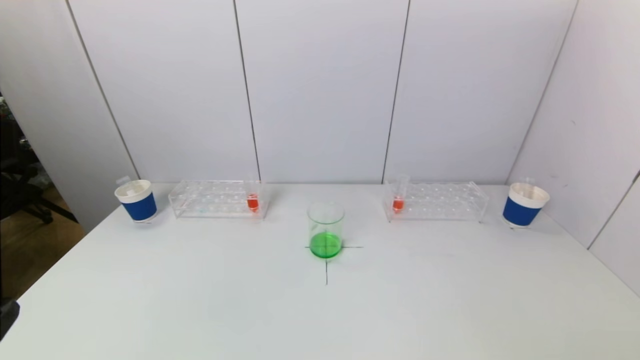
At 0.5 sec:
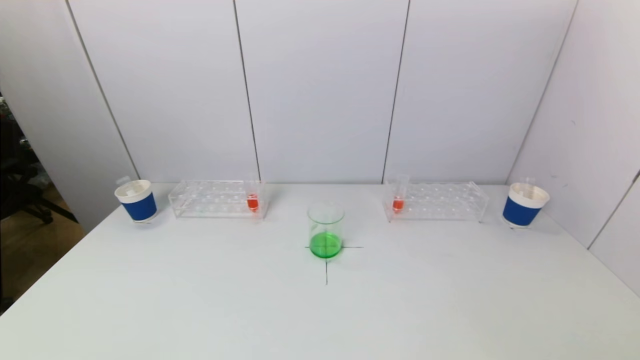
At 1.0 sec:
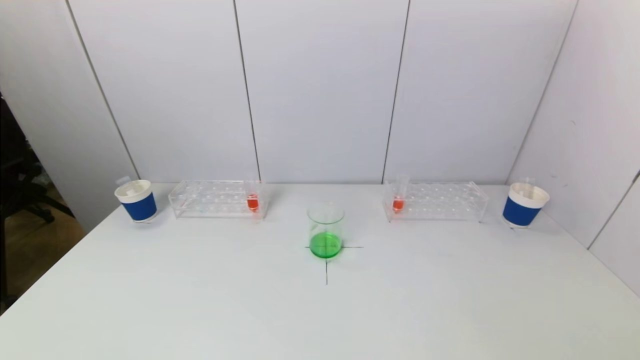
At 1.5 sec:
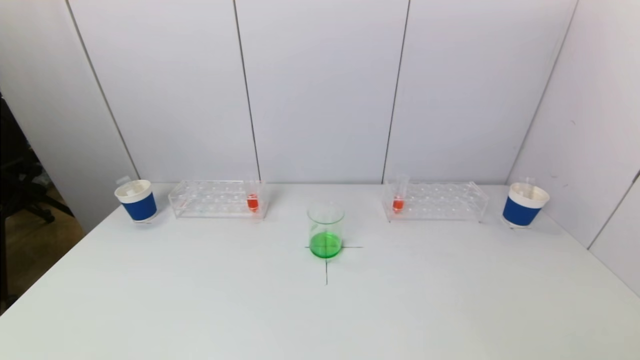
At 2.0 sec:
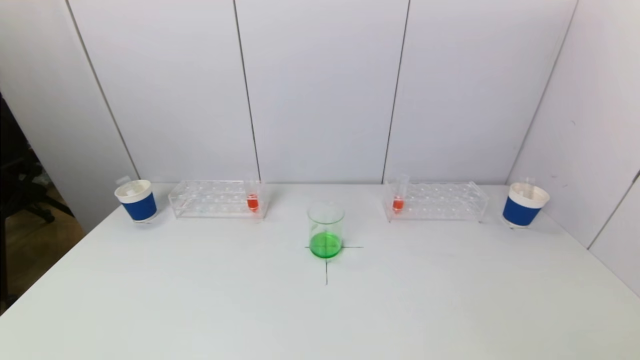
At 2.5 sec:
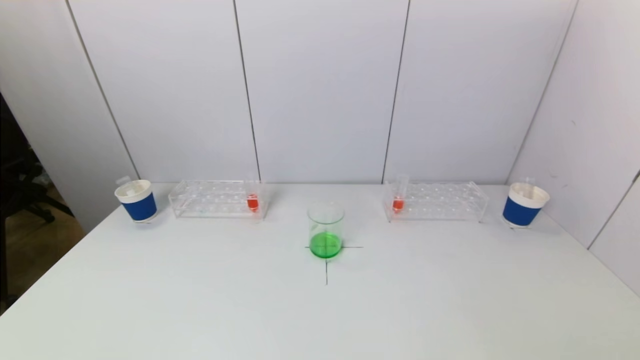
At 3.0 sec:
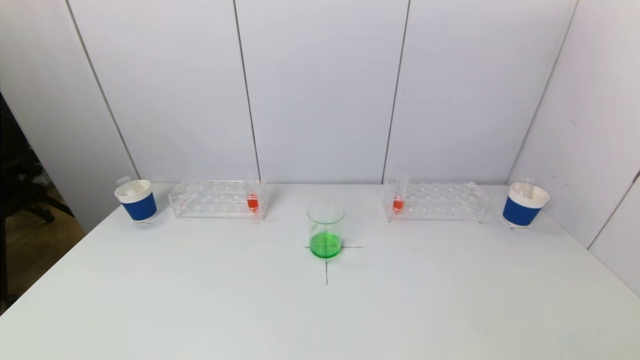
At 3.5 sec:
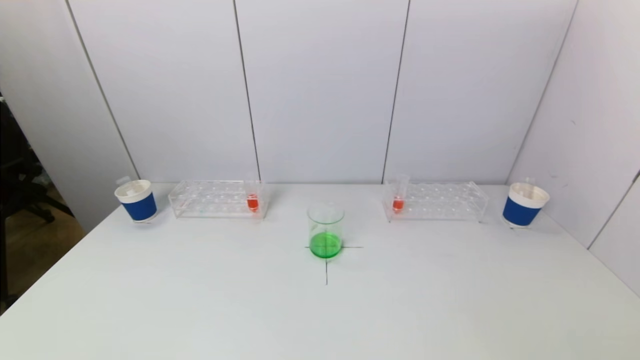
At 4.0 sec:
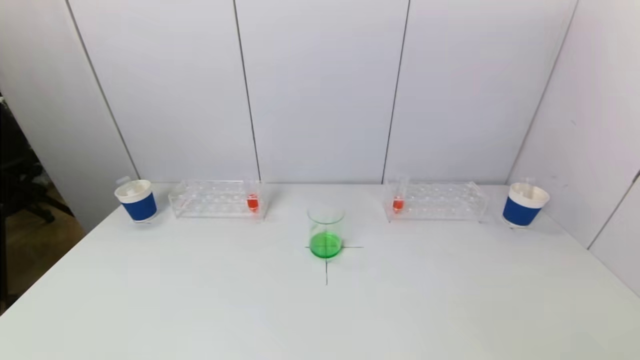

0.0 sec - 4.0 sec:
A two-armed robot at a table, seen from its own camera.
Task of the whole recording: pick up a test tube with pigment on left test tube rack and a test tube with pigment on right test tube rack by grippers and pour them into the beaker.
2.0 sec - 4.0 sec: The two grippers keep their place.

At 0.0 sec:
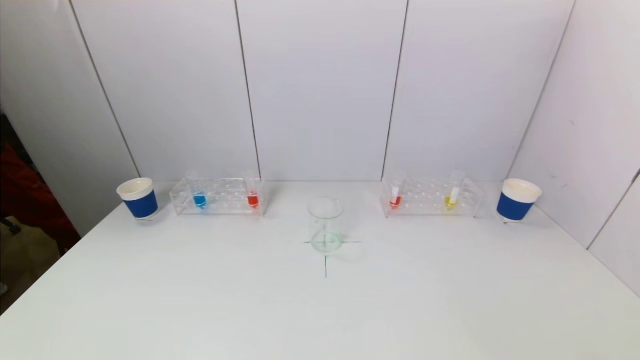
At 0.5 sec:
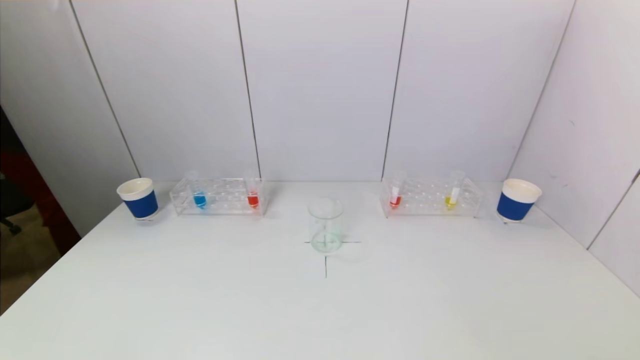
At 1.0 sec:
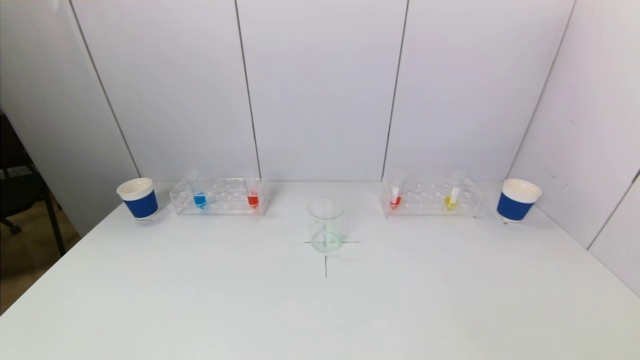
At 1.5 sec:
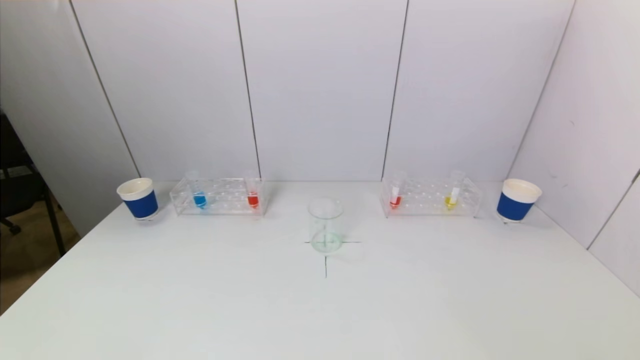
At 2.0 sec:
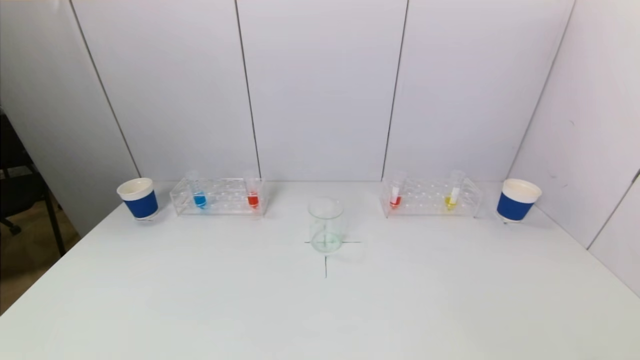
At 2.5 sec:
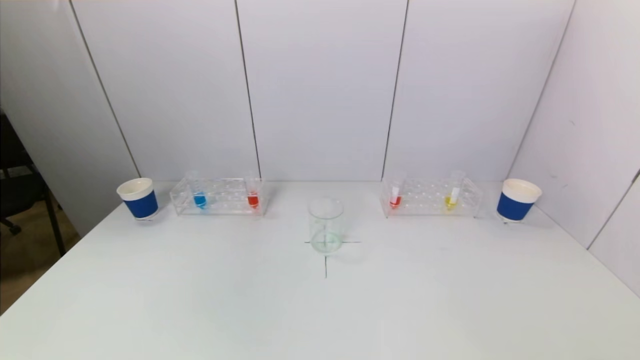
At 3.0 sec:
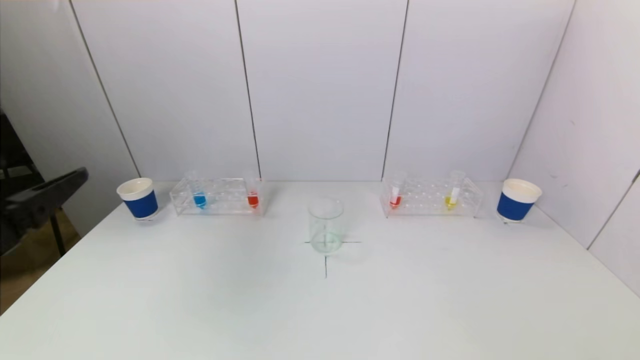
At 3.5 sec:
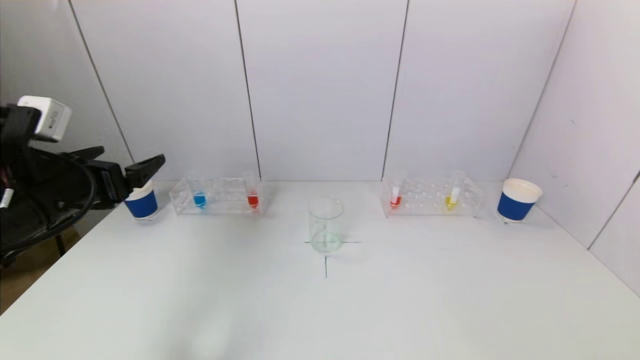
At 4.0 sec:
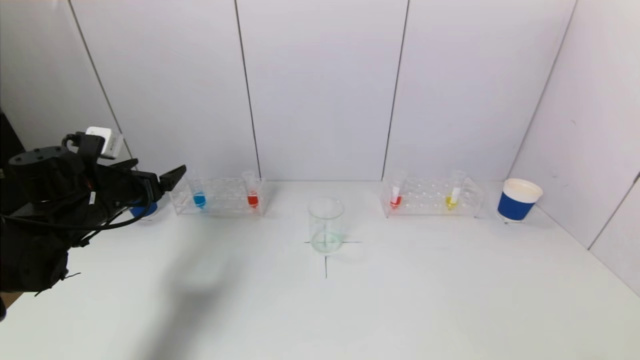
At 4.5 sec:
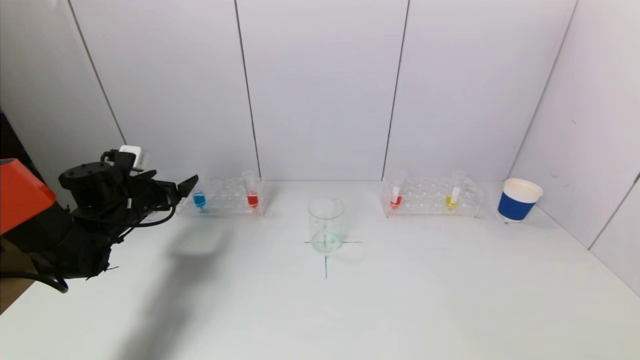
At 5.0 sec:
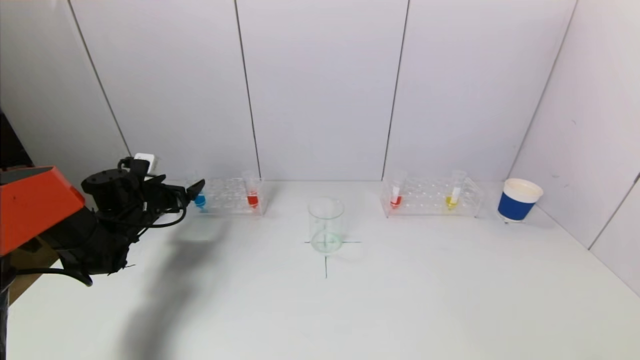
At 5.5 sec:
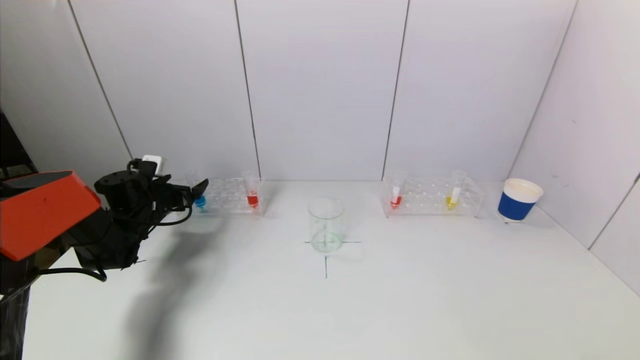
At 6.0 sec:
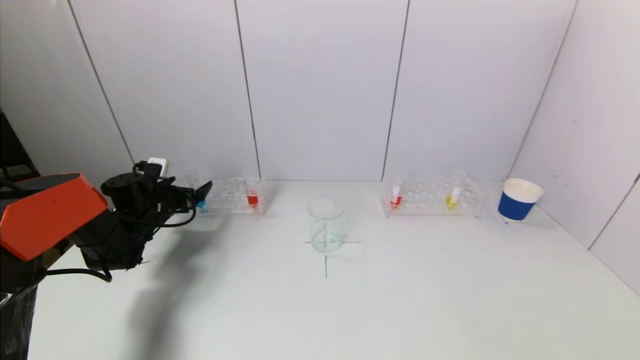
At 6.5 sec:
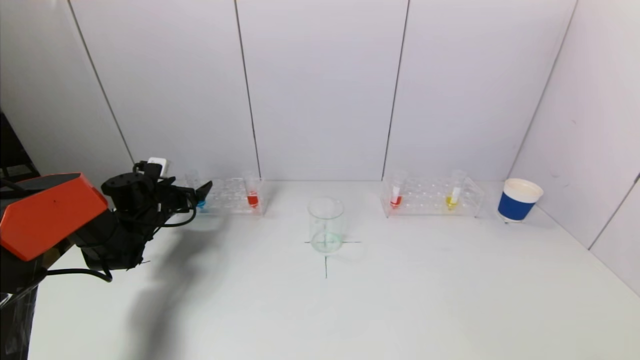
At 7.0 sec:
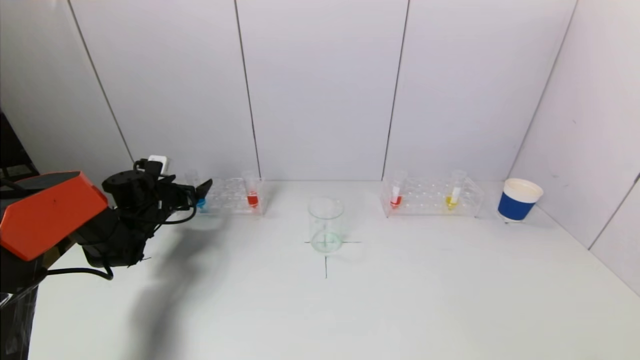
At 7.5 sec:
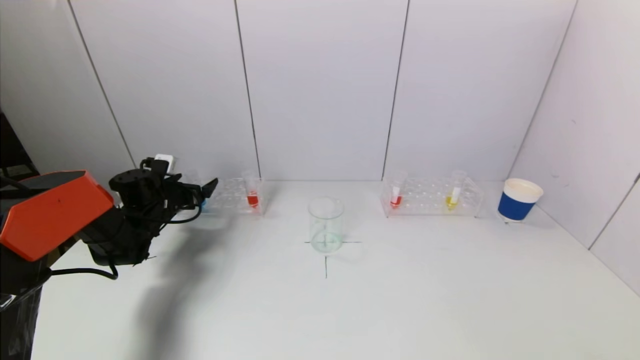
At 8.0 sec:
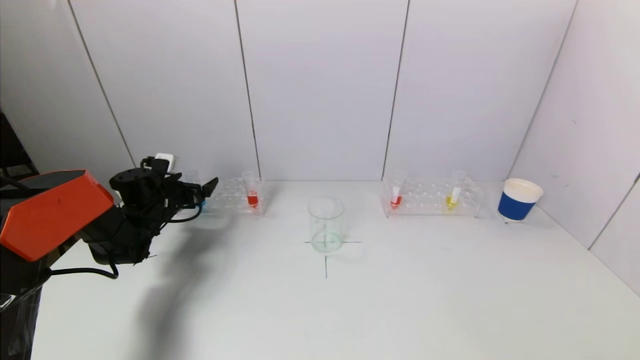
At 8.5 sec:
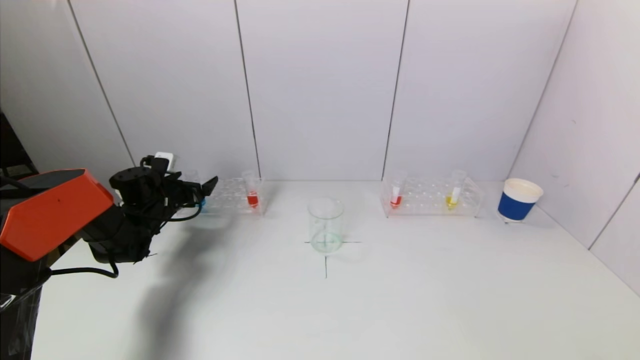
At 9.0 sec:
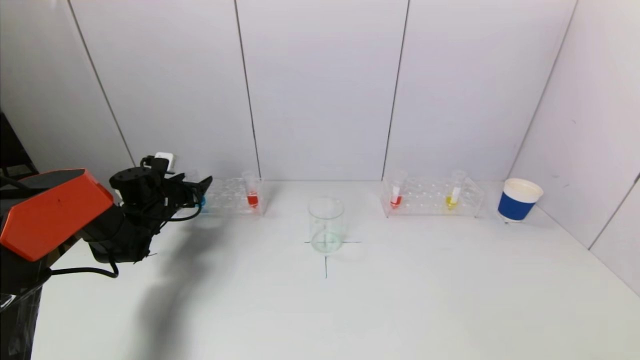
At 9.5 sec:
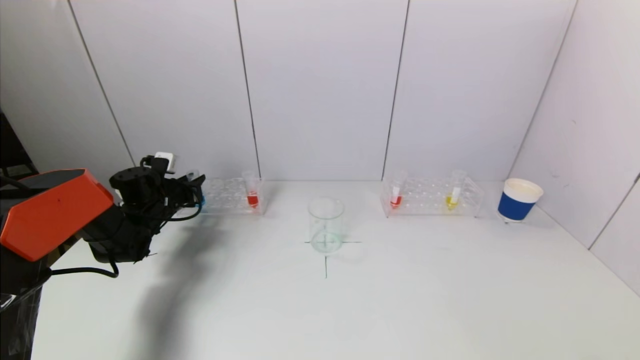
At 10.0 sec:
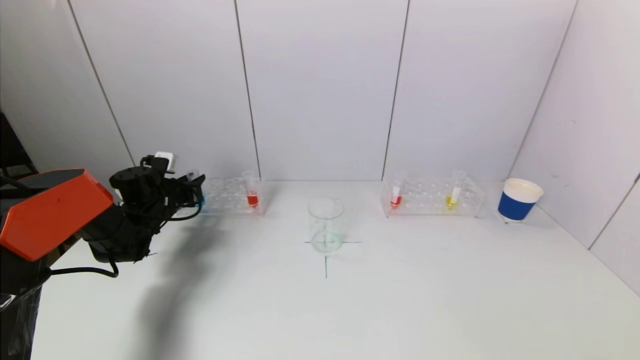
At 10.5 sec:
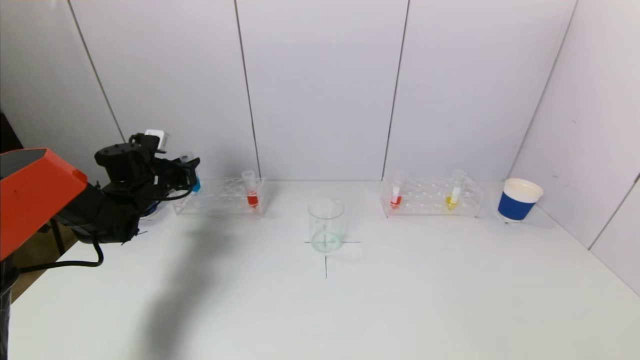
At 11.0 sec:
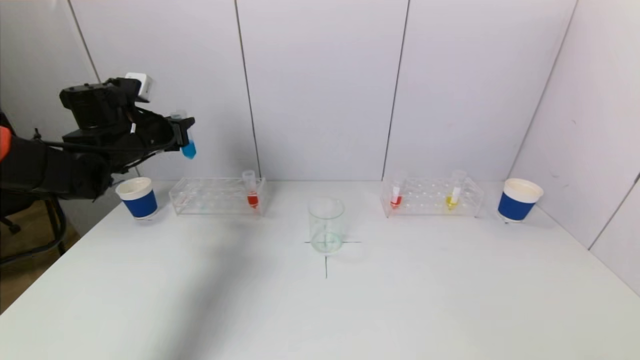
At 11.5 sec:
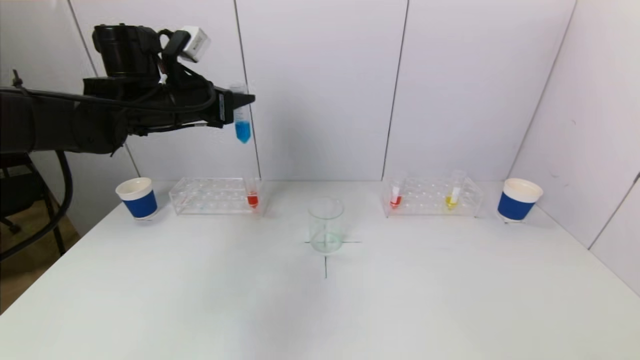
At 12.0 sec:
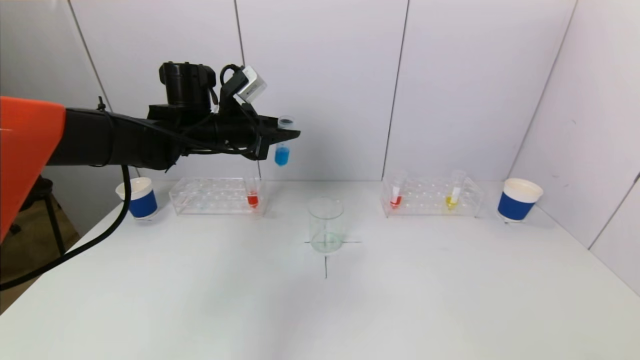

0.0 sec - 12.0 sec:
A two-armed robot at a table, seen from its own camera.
Task of the whole recording: pick up a test tube with pigment on left test tube rack and a test tube with pigment on right test tube rack by grippers and pour them into the beaker.
Step, 0.0 sec - 9.5 sec: Grasp the blue reagent with the left gripper.
0.0 sec - 2.0 sec: The left gripper moves upward, about 10 cm.
2.0 sec - 4.0 sec: The left gripper shifts approximately 35 cm forward.
4.0 sec - 6.0 sec: The left gripper goes some 15 cm forward and downward.
6.0 sec - 8.0 sec: The grippers make only small movements.
8.0 sec - 10.0 sec: The left gripper closes up.
10.0 sec - 12.0 sec: The left gripper is displaced upward and to the right by approximately 25 cm.

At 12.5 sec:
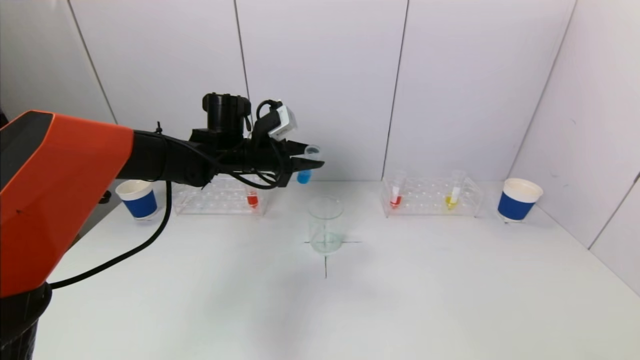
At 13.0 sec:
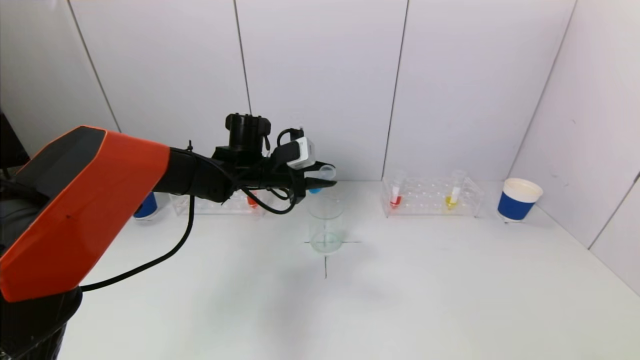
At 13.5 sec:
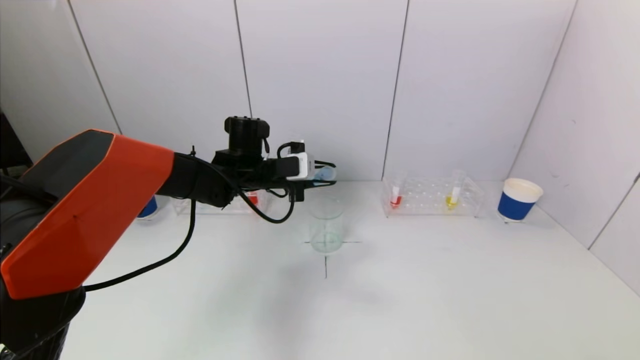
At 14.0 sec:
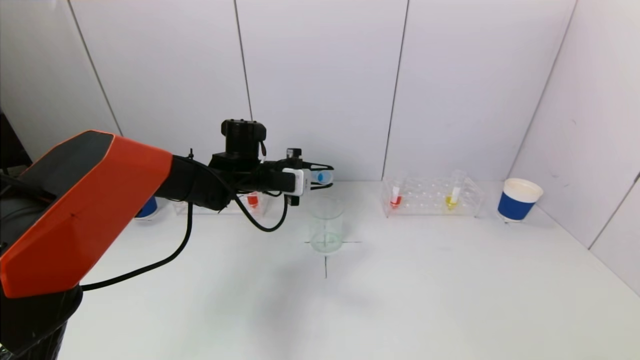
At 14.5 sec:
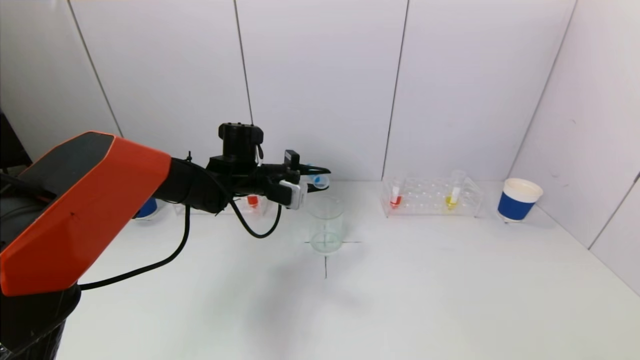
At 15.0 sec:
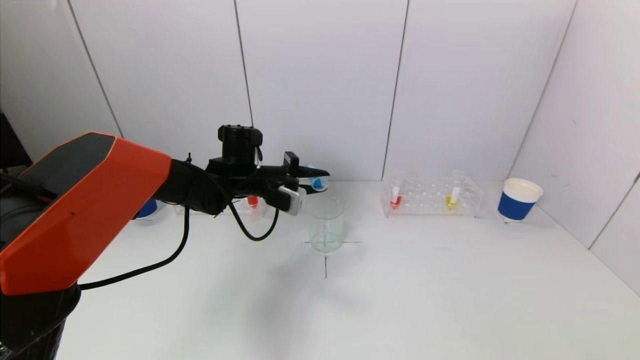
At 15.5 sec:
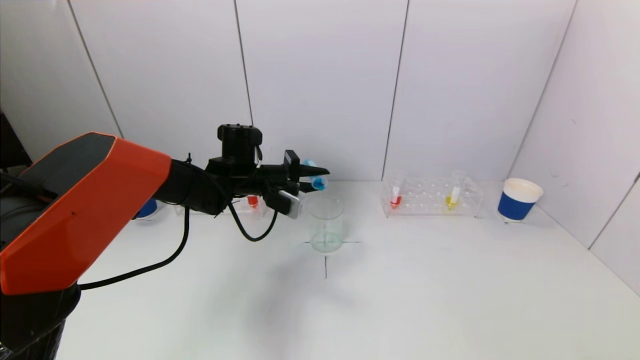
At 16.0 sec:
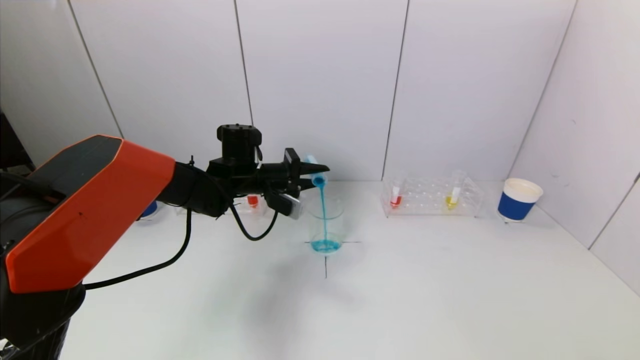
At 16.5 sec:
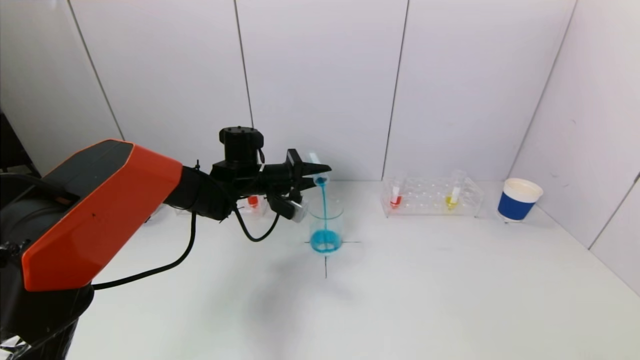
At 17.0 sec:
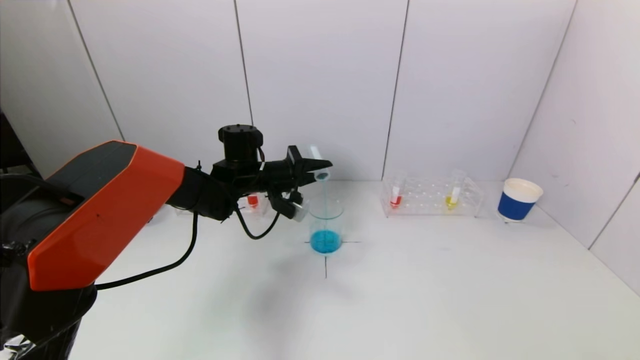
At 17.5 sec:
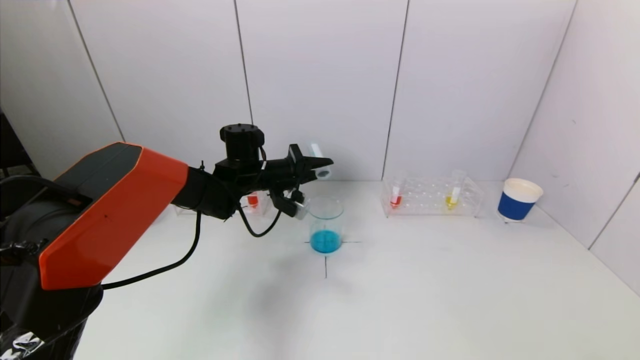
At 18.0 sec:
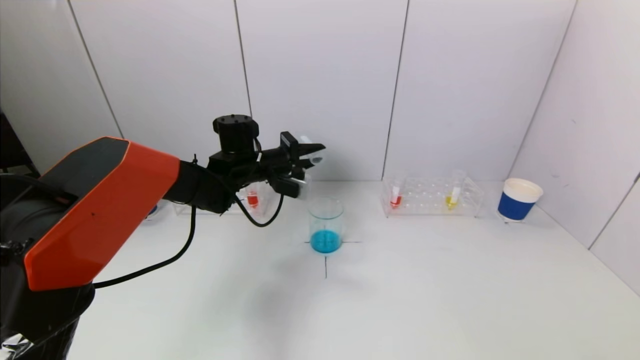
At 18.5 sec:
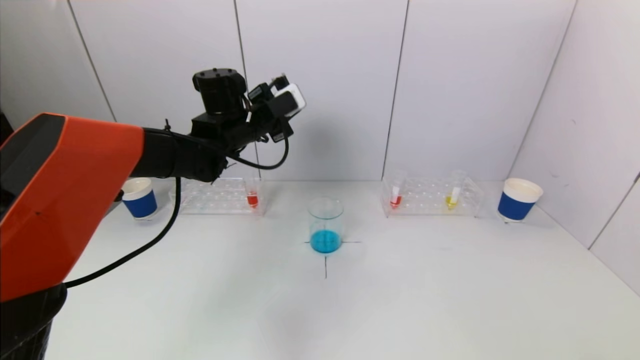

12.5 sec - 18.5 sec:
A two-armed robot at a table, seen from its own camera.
Task of the whole recording: pick up a test tube with pigment on left test tube rack and a test tube with pigment on right test tube rack by grippers and pour them into the beaker.
Step, 12.5 sec - 17.0 sec: Pour the blue reagent into the graduated cylinder with the left gripper.
12.5 sec - 14.5 sec: The left gripper ends up about 5 cm from where it was.
16.5 sec - 18.5 sec: The left gripper is displaced upward by some 10 cm.
